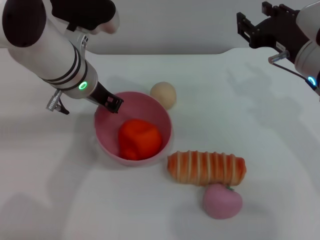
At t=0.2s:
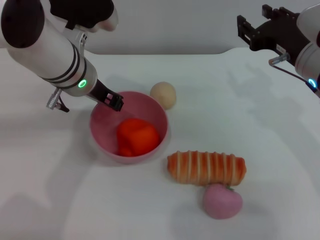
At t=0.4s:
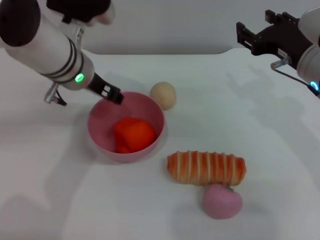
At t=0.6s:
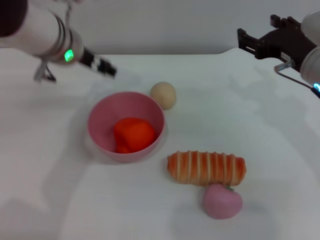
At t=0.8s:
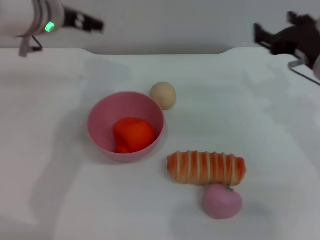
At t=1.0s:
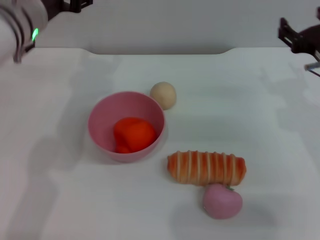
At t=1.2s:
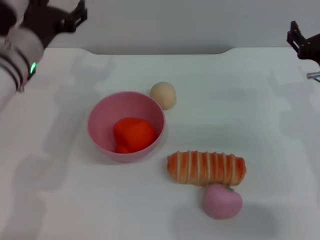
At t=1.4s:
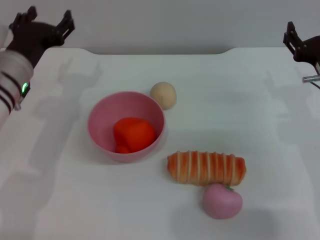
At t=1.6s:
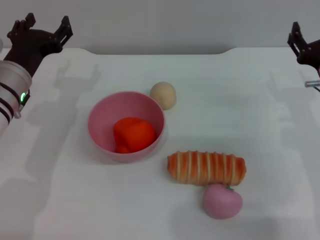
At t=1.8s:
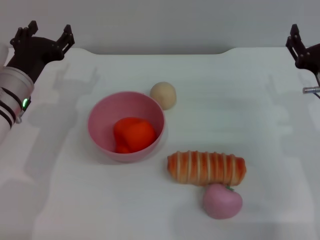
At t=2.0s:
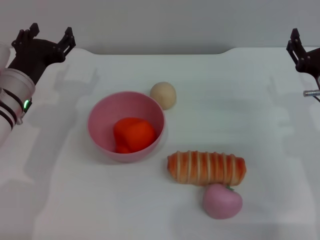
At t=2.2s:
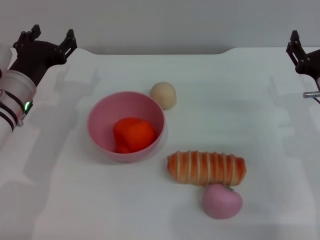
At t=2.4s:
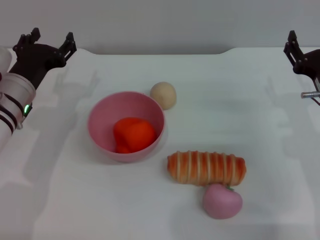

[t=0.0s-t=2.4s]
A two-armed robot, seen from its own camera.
Task of the whole recording: put the orange into the pink bowl and pour it out repeatedly.
t=0.0s to t=1.2s: The right gripper is displaced downward by approximately 5 cm; the left gripper shifts some 10 cm to the left, and opens its fingers.
t=1.2s to t=2.4s: The left gripper shifts some 5 cm downward.
